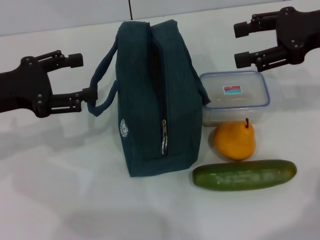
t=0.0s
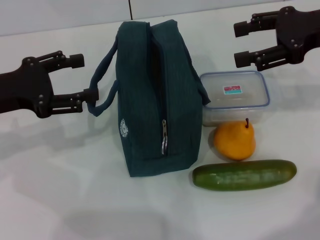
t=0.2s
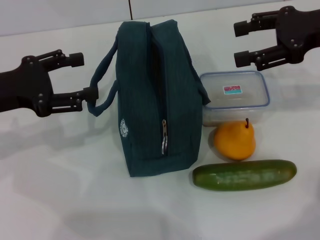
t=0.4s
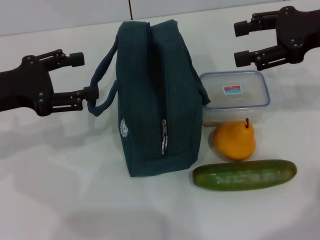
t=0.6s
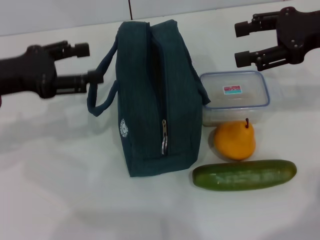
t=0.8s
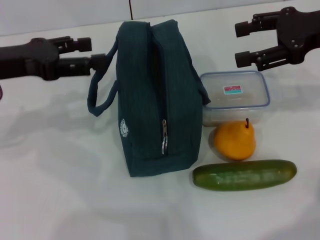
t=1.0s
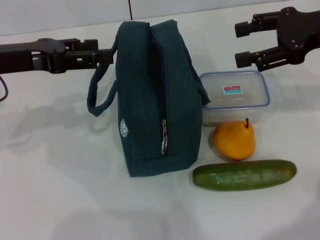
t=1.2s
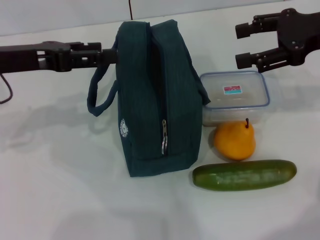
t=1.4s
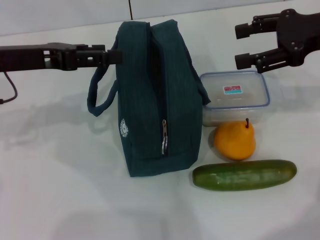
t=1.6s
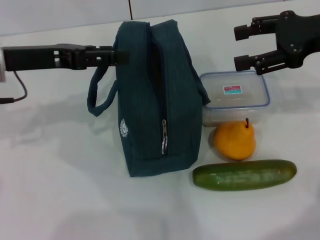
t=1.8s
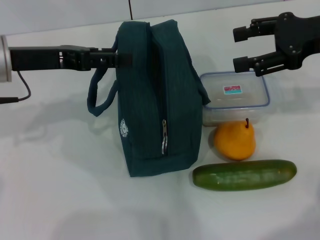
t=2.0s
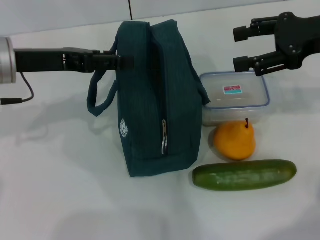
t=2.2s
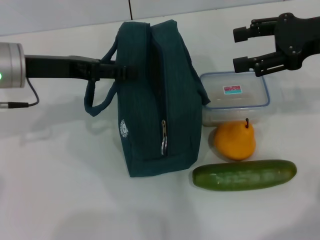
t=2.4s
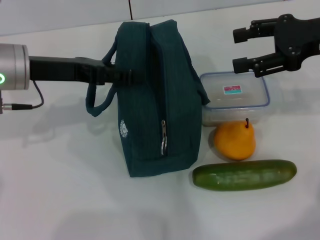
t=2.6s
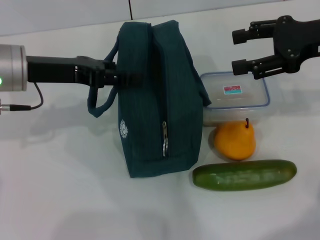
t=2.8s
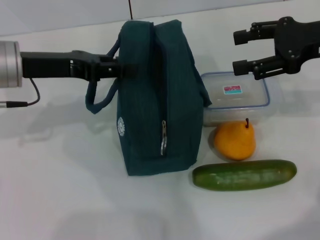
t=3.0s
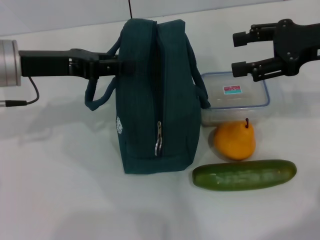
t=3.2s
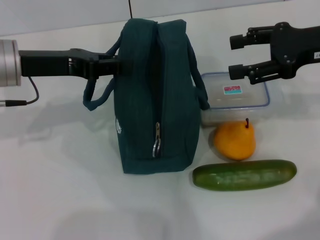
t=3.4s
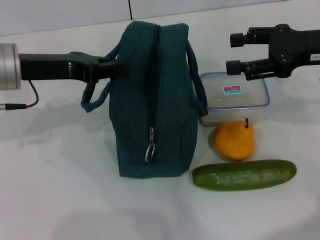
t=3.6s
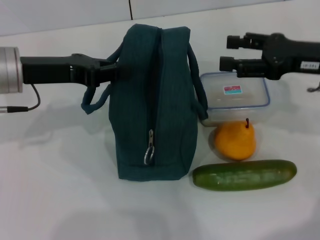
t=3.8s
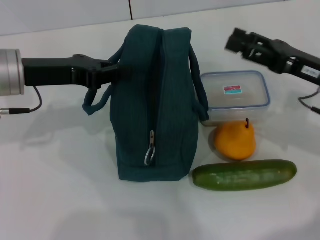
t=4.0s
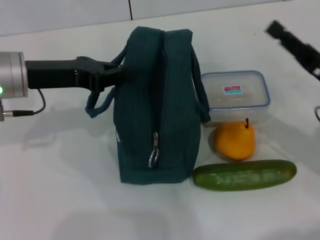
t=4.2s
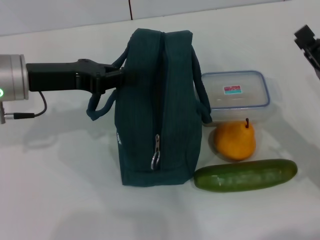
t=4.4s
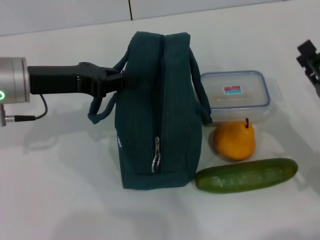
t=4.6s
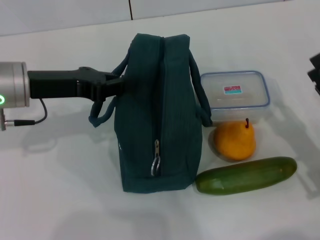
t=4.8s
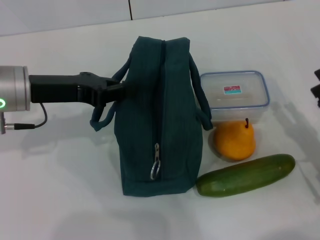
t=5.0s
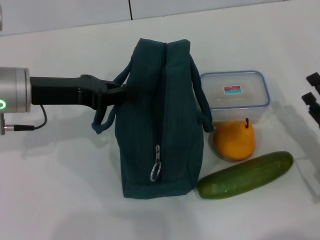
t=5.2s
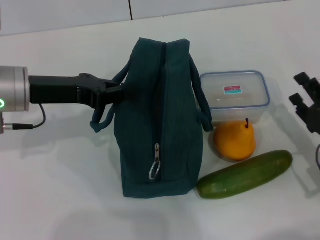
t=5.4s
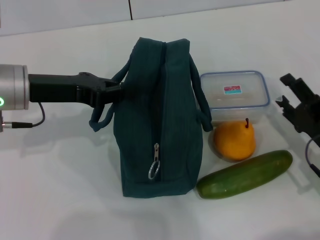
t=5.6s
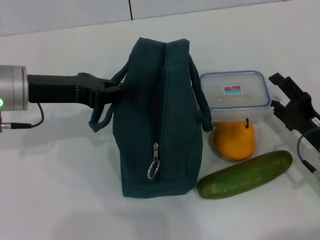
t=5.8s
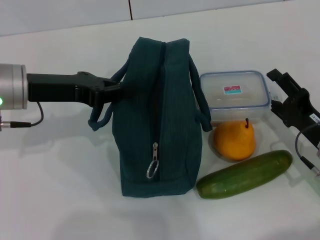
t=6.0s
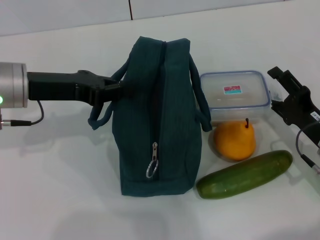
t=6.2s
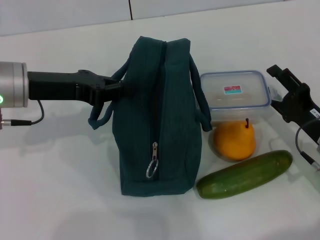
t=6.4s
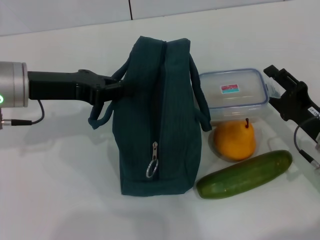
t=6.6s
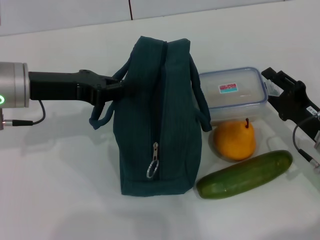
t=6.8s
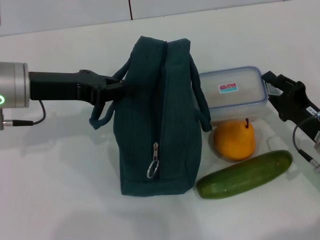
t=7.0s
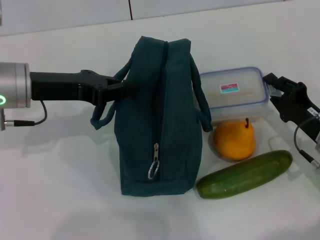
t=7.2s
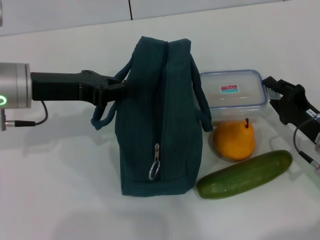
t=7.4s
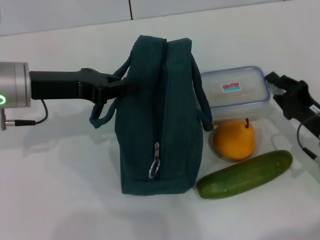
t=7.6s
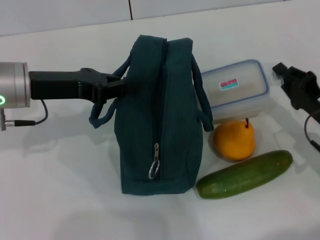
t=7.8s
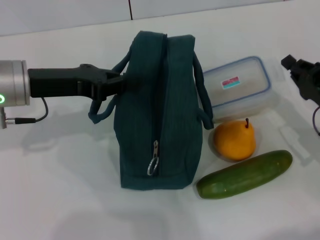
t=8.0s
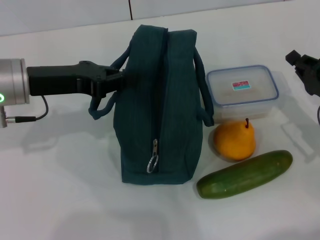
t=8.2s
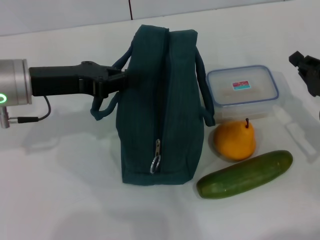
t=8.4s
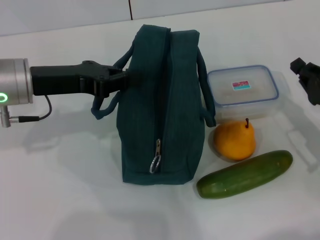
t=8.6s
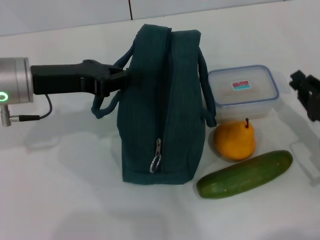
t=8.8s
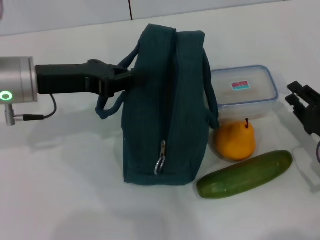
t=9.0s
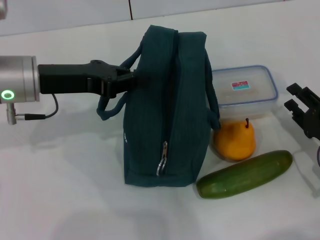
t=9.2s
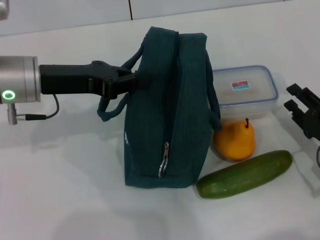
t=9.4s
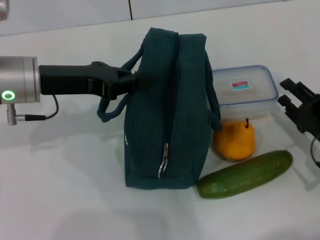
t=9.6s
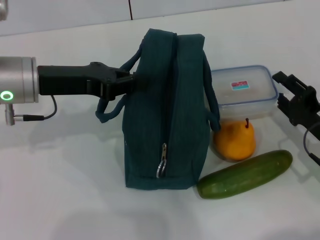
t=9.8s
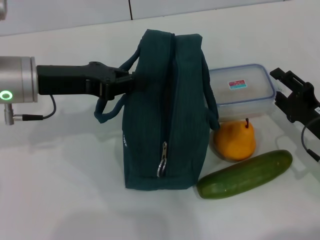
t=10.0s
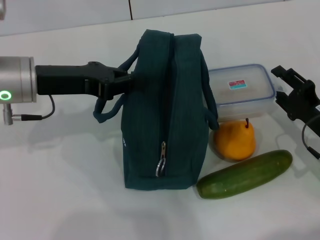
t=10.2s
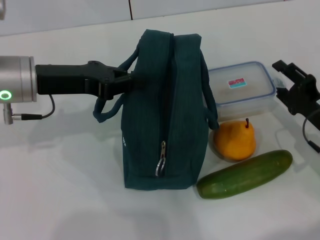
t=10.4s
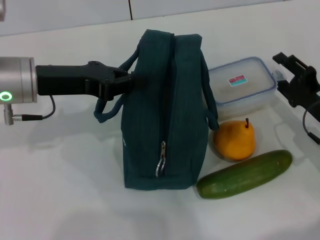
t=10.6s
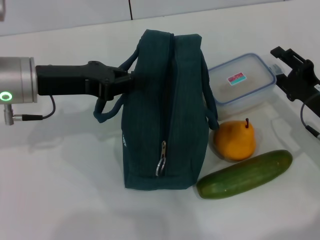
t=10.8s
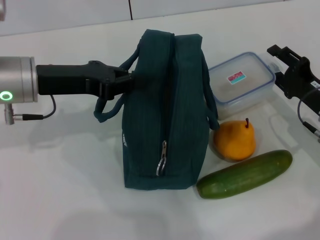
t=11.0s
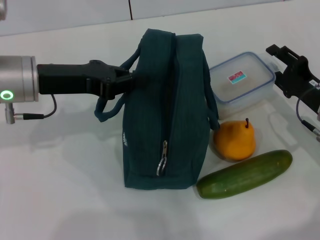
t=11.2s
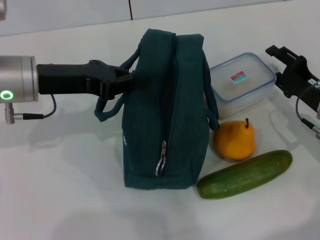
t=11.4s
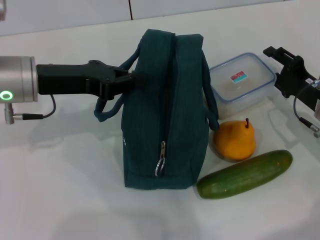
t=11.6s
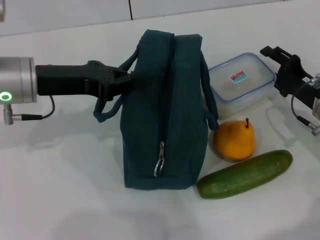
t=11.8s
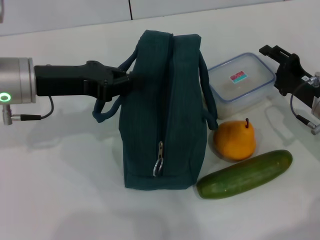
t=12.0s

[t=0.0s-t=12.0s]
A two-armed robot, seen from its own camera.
Step, t=0.0s to t=3.4s: Hold the lunch bag with your left hand.
t=0.0s to t=1.6s: The left gripper moves roughly 5 cm.
t=1.6s to t=3.0s: The grippers stay close to where they were, moving slightly.
t=3.0s to t=4.4s: The right gripper goes about 20 cm downward and backward. The left gripper closes its fingers.
t=4.4s to t=6.0s: The right gripper goes about 5 cm downward.
t=6.0s to t=7.6s: The right gripper closes its fingers.
t=7.6s to t=10.4s: The grippers stay close to where they were, moving slightly.
t=10.4s to t=12.0s: The right gripper travels forward by some 5 cm.

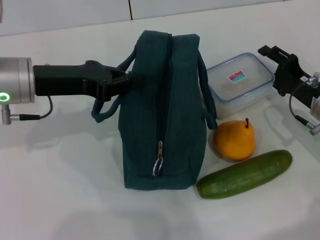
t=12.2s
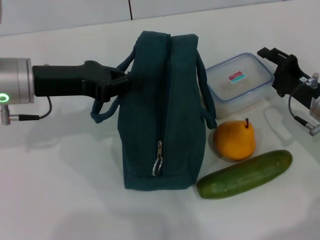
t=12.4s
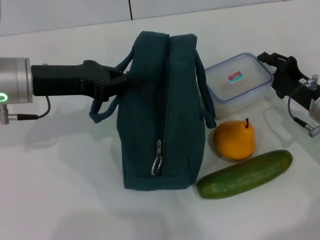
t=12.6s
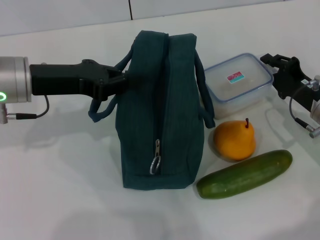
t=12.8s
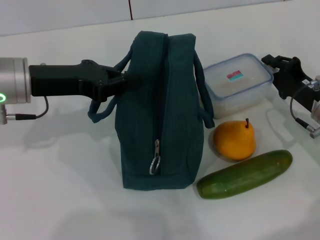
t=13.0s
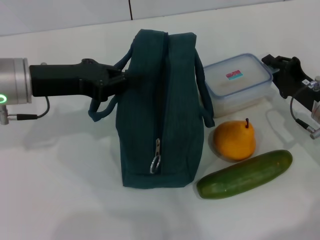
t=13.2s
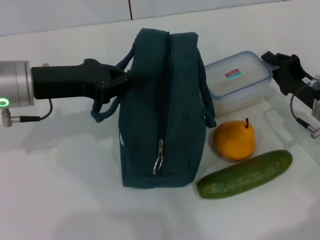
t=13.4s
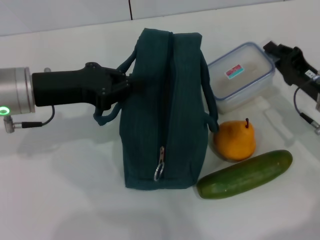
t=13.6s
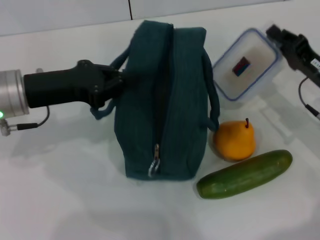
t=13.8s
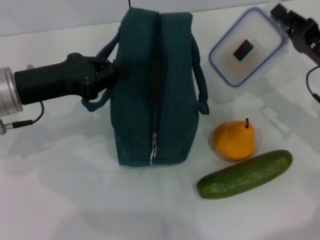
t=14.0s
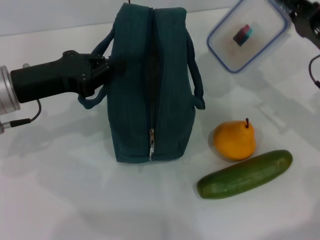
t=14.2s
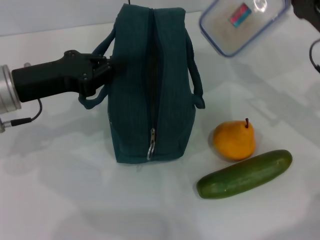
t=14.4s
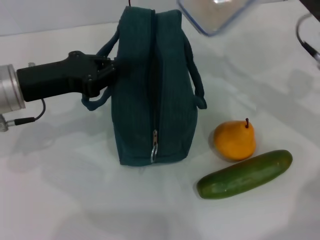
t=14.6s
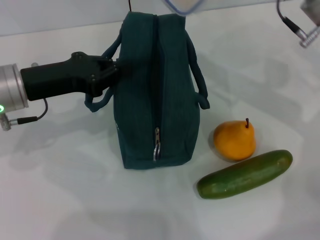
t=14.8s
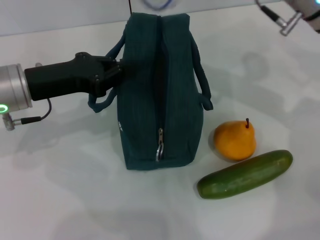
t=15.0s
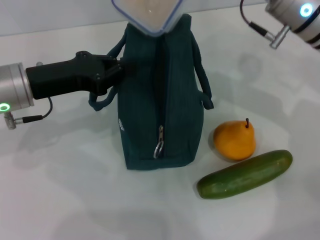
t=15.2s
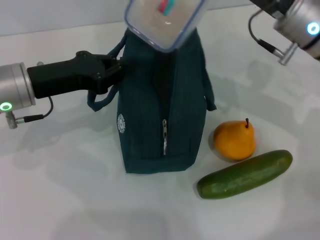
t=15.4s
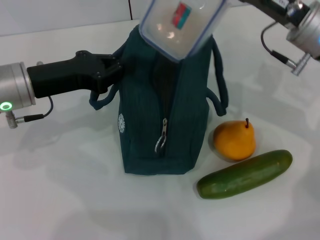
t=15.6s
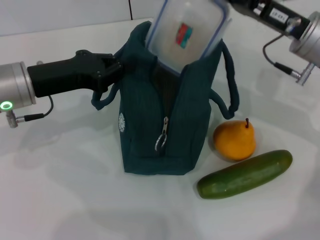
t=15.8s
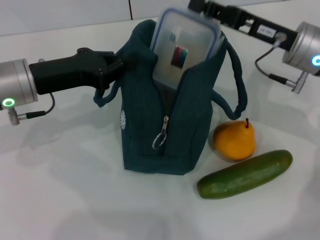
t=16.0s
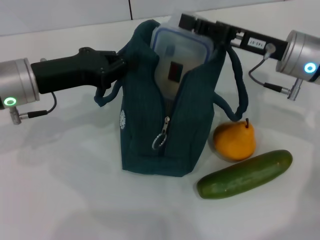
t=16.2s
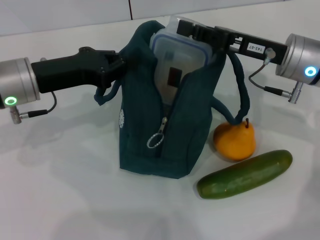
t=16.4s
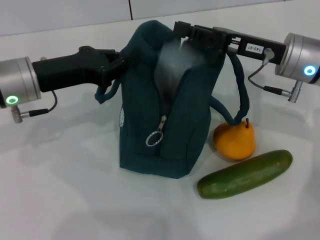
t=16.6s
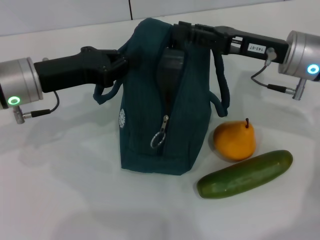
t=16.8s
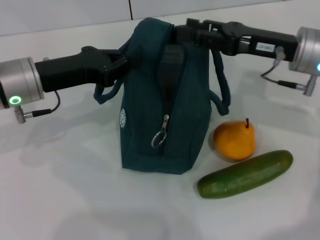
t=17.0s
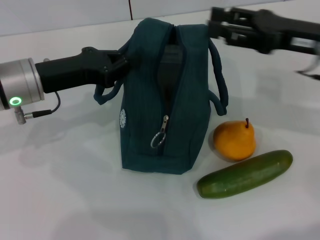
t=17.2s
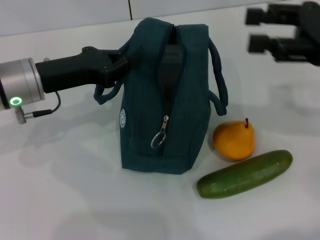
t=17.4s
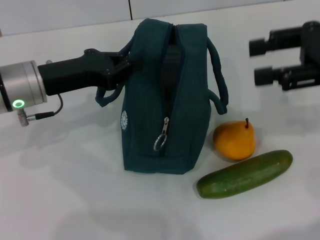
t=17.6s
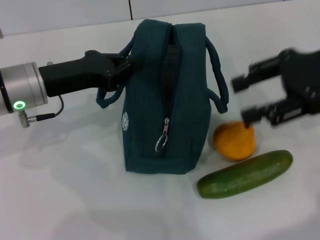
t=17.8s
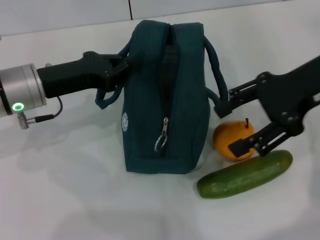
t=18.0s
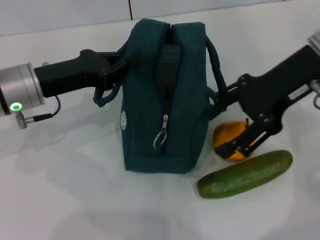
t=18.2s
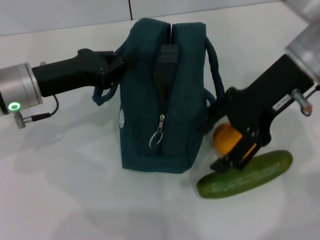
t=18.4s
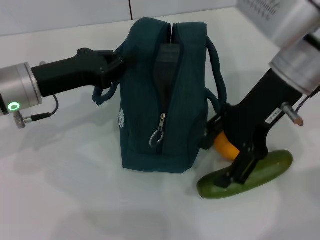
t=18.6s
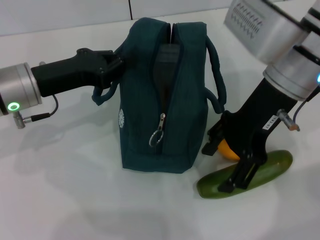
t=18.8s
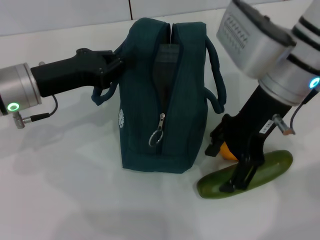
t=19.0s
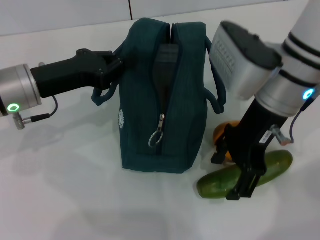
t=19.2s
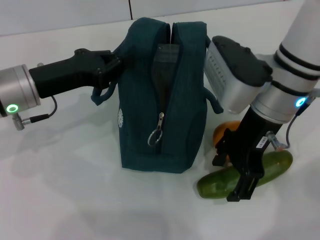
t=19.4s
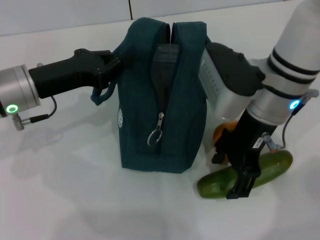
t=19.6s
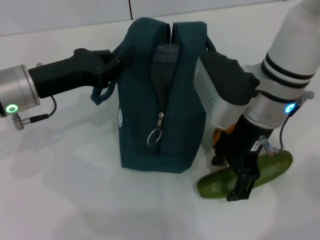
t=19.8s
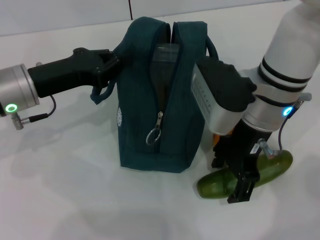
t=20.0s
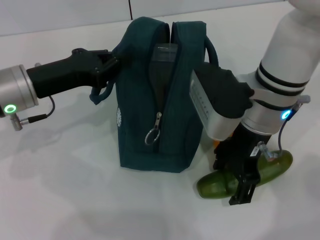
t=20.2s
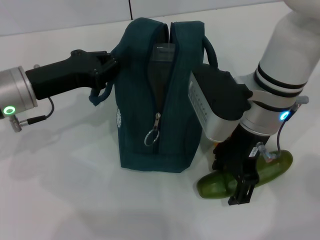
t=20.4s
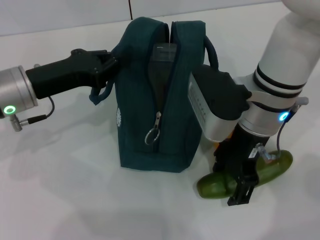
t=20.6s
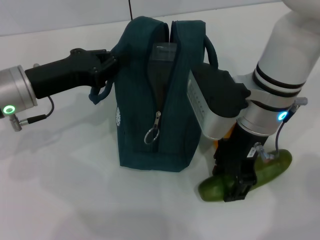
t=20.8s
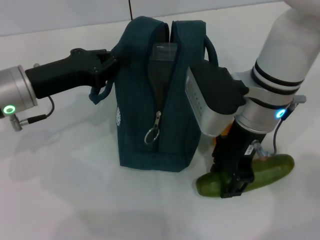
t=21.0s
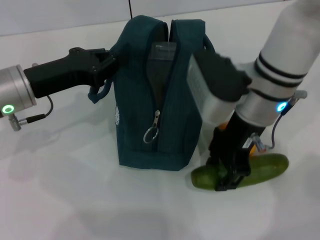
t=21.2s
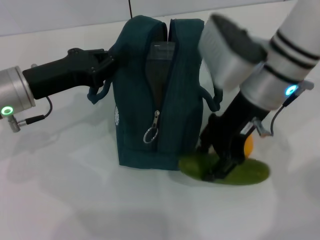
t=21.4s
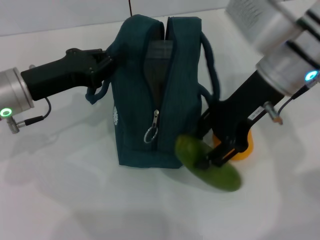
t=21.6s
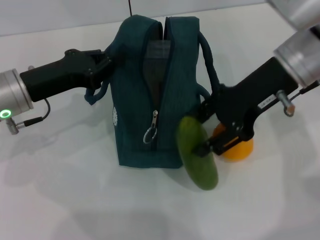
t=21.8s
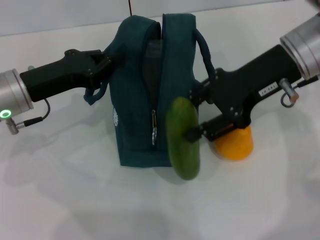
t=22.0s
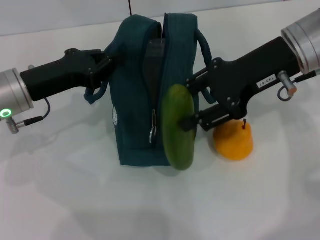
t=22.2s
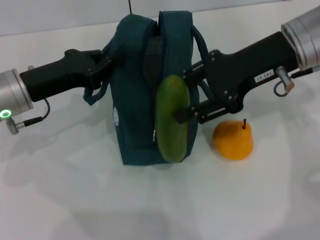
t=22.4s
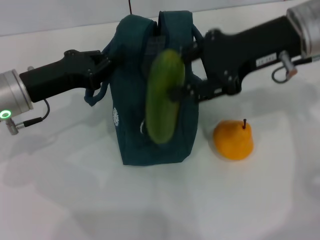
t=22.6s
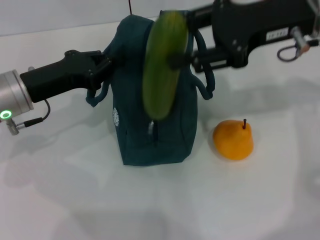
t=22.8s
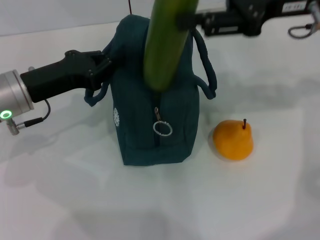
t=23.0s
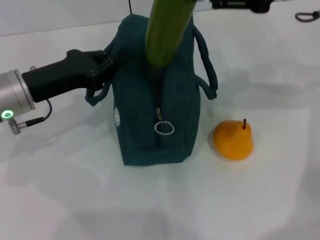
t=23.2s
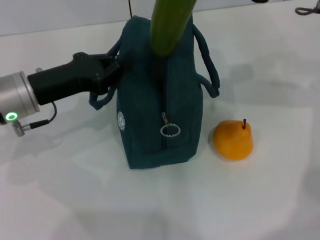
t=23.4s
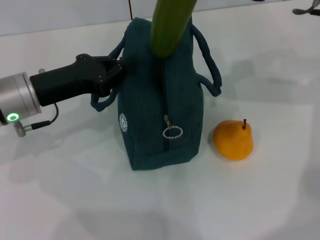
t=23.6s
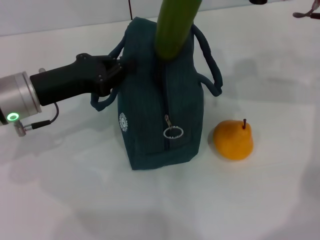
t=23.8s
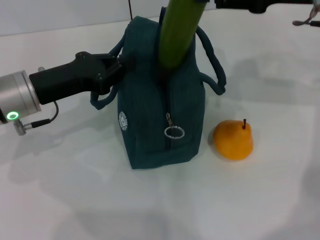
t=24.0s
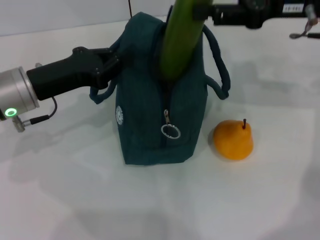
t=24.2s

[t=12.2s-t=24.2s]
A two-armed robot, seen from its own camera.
Step, t=13.8s to t=16.6s: Place the lunch box into the lunch bag with your right hand.
Step, t=17.0s to t=21.0s: Pick up the cucumber with your right hand.
t=12.2s to t=13.8s: The right gripper closes up.
t=13.8s to t=15.2s: The right gripper shifts approximately 15 cm upward, to the left and forward.
t=15.2s to t=16.6s: The right gripper shifts by about 5 cm.
t=16.6s to t=18.2s: The right gripper travels upward by some 10 cm, and opens up.
t=18.2s to t=19.8s: The right gripper shifts approximately 10 cm to the left and downward.
t=19.8s to t=21.2s: The right gripper closes up.
t=21.2s to t=22.6s: The right gripper shifts some 10 cm to the right and upward.
t=22.6s to t=24.2s: The right gripper moves to the right, approximately 5 cm.
